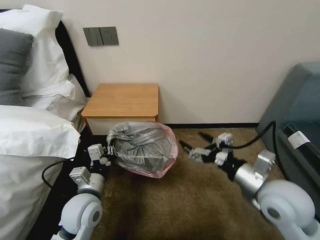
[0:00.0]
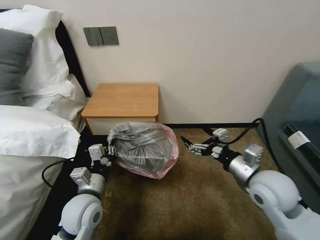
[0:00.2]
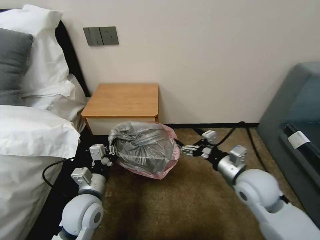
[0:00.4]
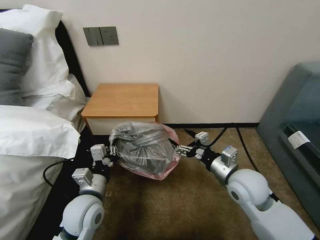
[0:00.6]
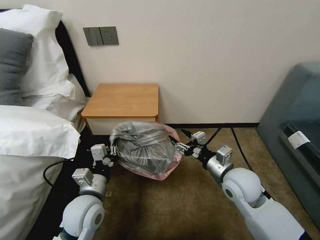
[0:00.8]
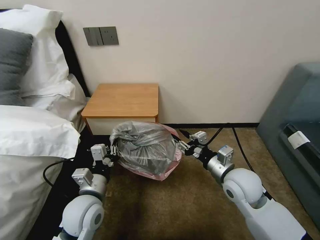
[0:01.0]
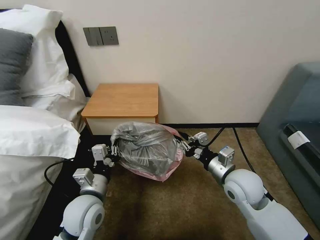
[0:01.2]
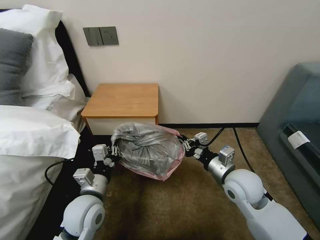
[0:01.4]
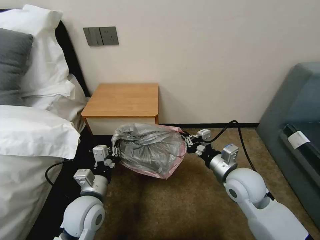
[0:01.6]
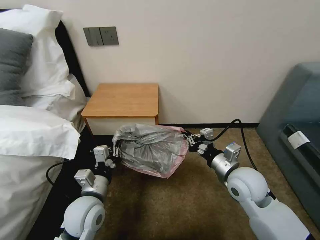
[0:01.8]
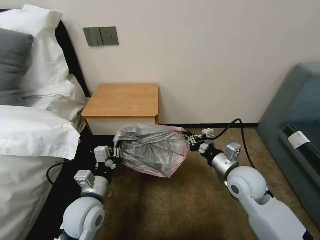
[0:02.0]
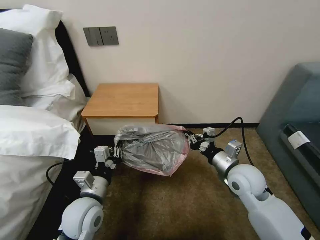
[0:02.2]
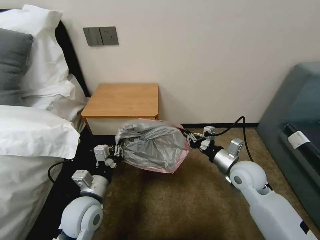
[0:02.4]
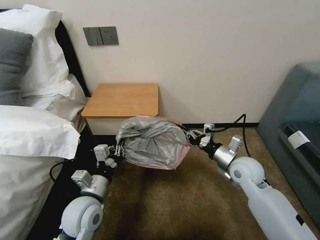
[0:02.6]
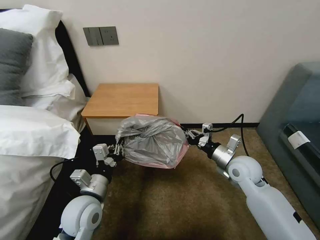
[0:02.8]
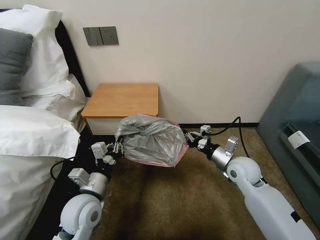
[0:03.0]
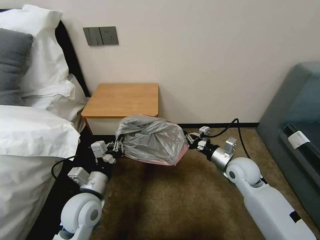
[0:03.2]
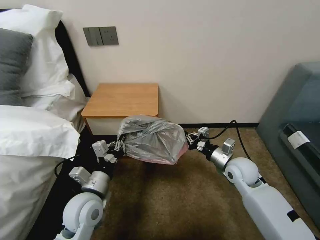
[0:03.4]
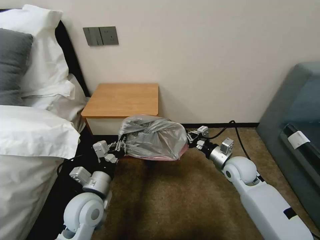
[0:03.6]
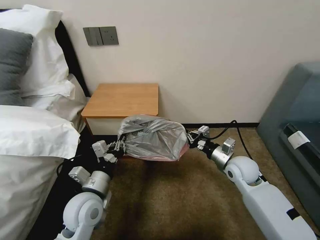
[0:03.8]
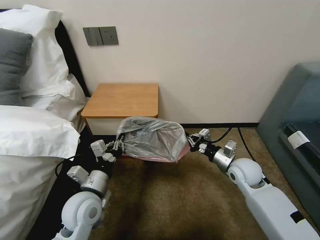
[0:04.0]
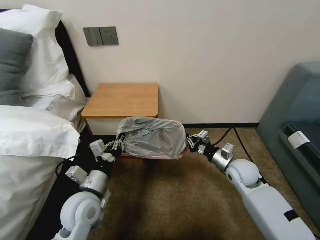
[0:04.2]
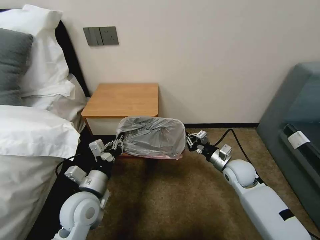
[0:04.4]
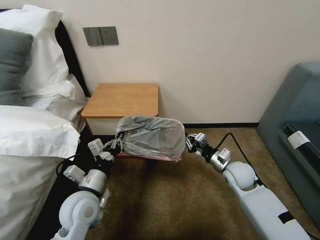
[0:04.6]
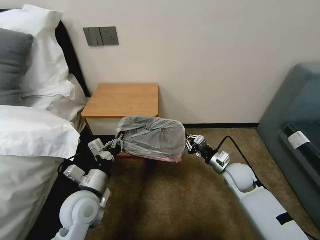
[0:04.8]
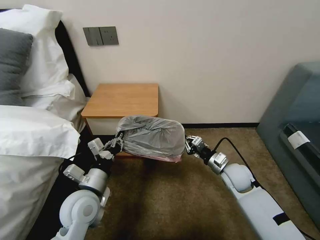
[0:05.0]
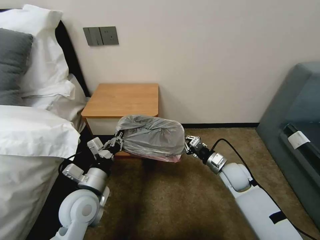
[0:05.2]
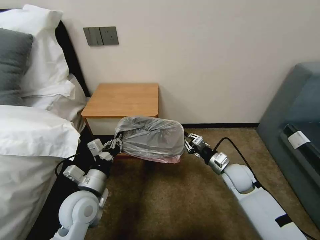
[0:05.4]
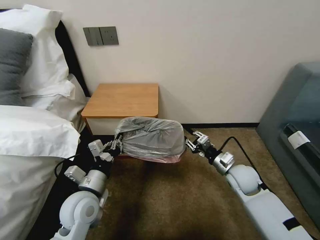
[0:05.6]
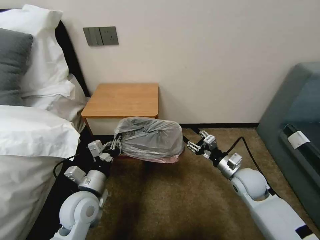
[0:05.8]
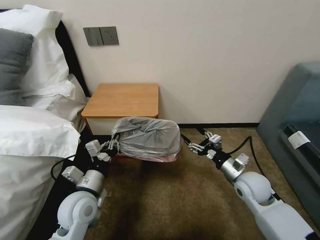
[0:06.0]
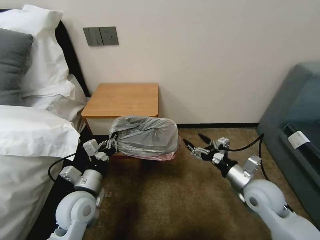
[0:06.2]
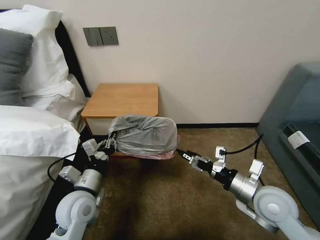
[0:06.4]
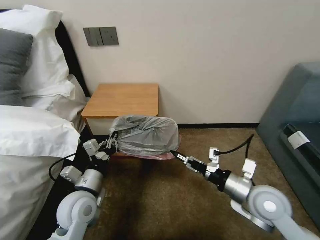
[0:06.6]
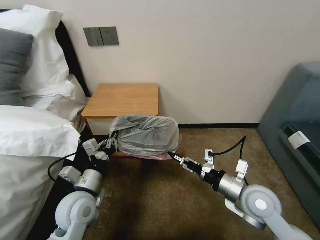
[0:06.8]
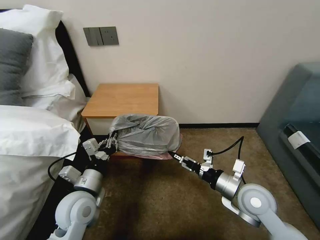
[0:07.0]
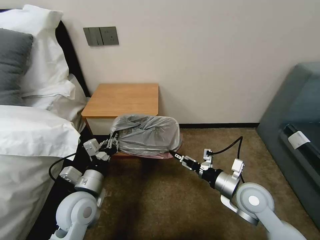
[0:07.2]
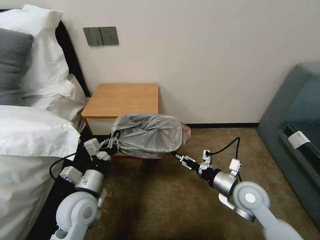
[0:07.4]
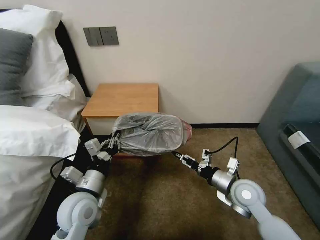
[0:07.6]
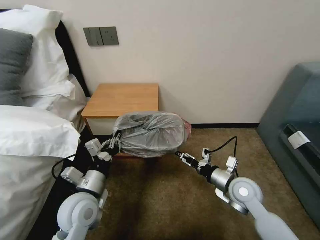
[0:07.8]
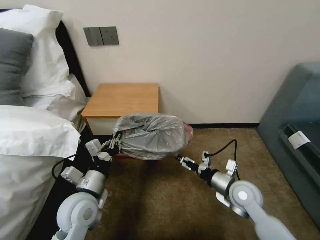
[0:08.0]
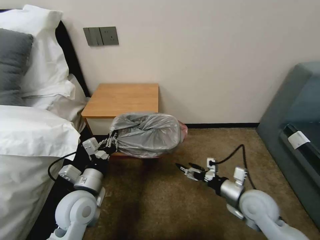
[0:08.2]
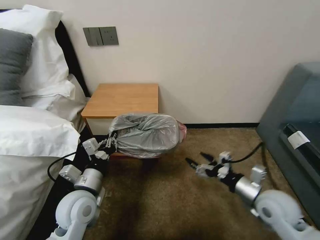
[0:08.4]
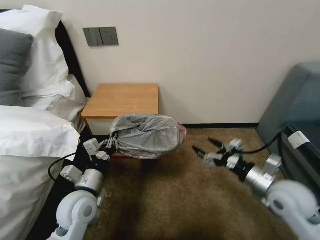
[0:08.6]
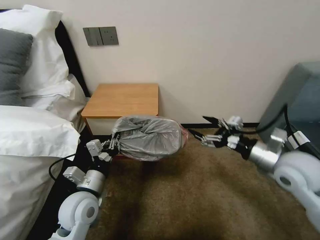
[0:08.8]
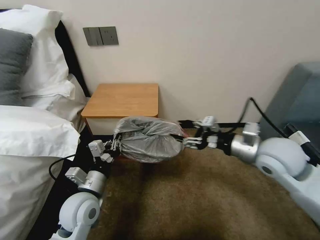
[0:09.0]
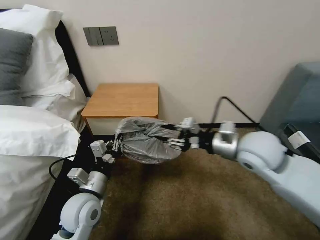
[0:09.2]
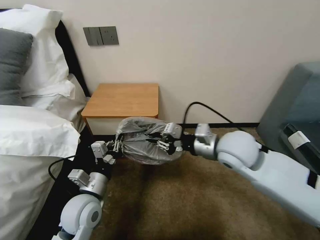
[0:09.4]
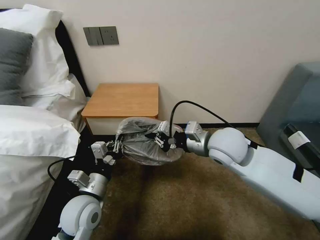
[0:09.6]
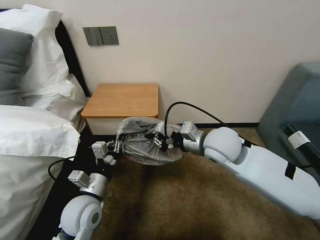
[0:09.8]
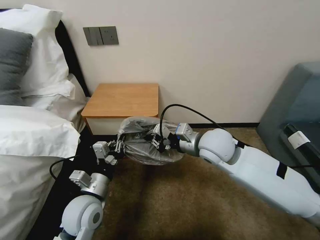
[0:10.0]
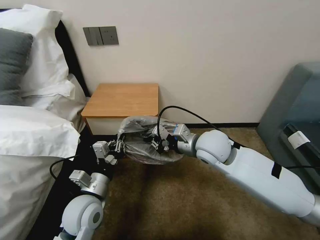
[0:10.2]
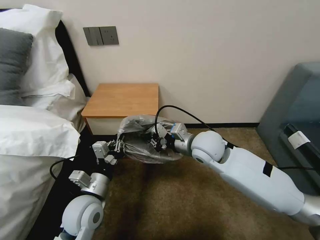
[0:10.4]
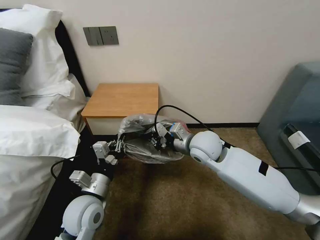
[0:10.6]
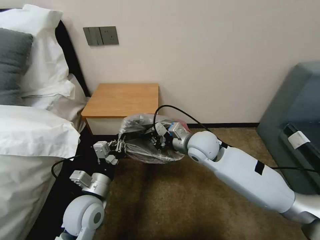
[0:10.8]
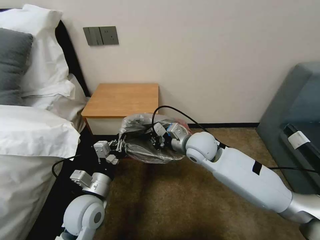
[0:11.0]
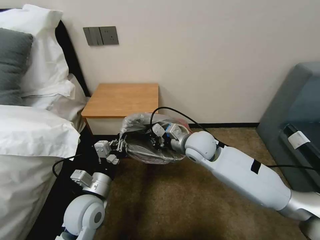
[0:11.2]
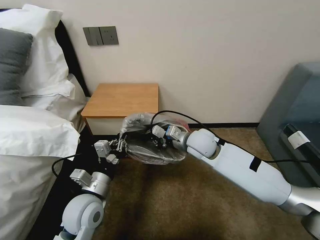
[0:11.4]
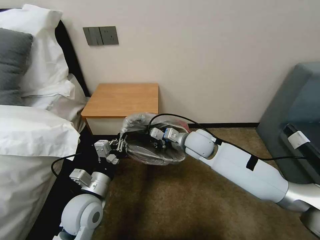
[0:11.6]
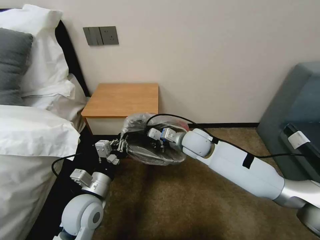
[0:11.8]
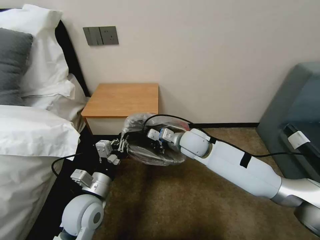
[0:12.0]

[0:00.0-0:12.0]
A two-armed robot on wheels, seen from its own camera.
Task of the whole recording: Pick up the garbage bag from the table and place it over the trash can.
0.0 to 1.6 s: The right gripper travels forward and downward by roughly 10 cm, and closes.
1.6 to 3.0 s: The right gripper heads forward, covering approximately 5 cm.
4.4 to 6.0 s: The right gripper heads backward, covering about 5 cm, and opens its fingers.
7.6 to 9.0 s: The right gripper travels upward by about 15 cm, and closes its fingers.
9.0 to 10.4 s: The right gripper is displaced to the left and forward by some 15 cm, and closes.
10.4 to 12.0 s: The right gripper moves approximately 5 cm.

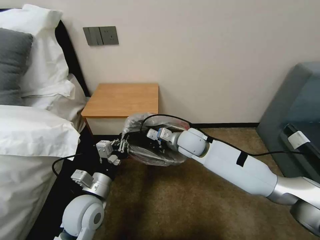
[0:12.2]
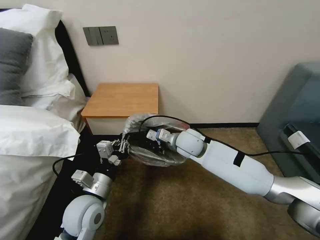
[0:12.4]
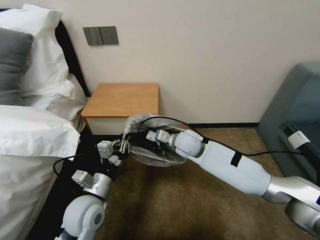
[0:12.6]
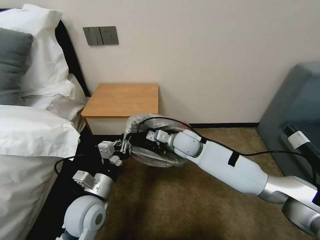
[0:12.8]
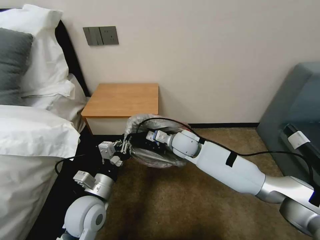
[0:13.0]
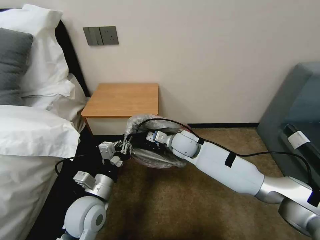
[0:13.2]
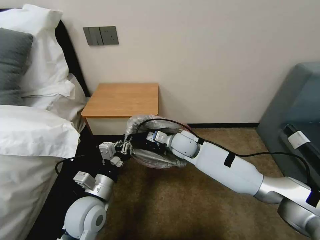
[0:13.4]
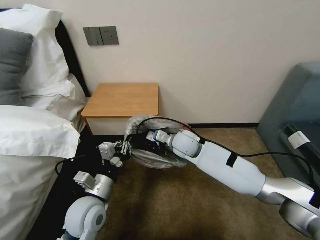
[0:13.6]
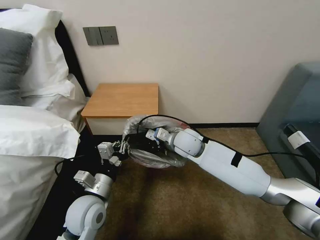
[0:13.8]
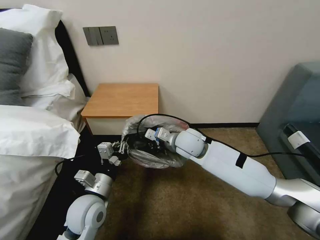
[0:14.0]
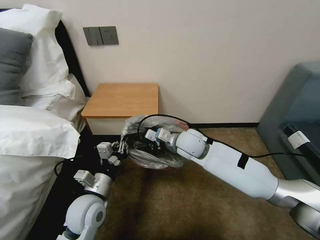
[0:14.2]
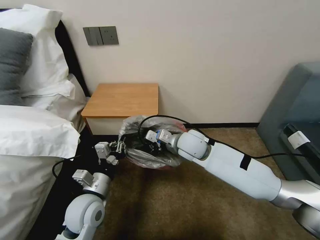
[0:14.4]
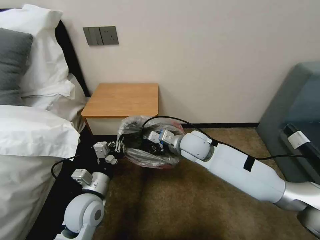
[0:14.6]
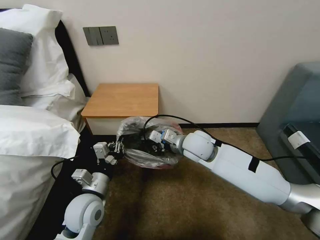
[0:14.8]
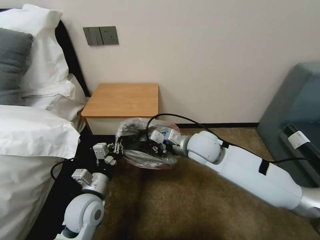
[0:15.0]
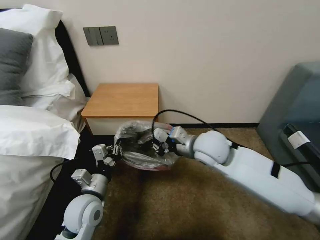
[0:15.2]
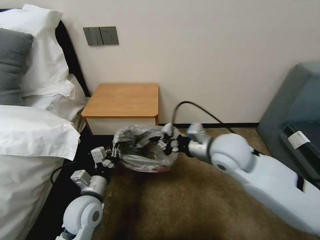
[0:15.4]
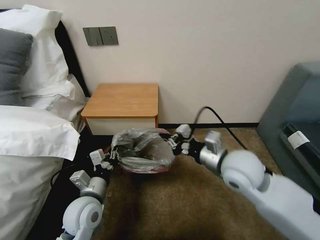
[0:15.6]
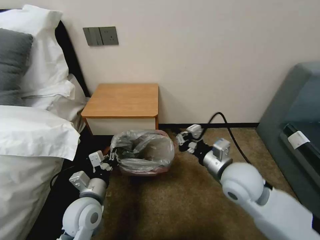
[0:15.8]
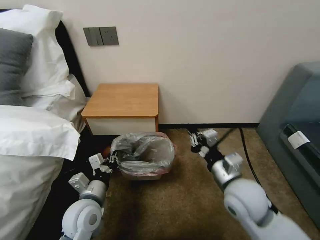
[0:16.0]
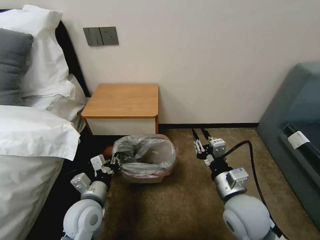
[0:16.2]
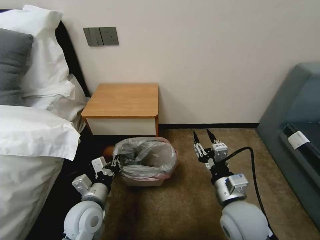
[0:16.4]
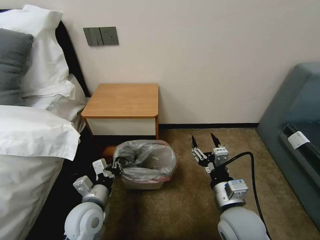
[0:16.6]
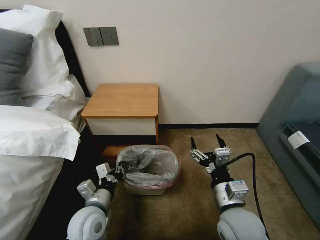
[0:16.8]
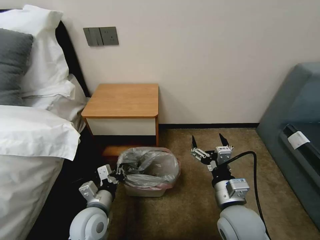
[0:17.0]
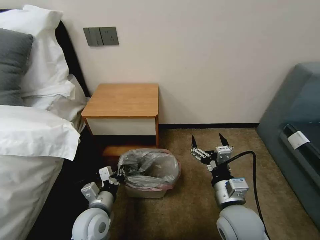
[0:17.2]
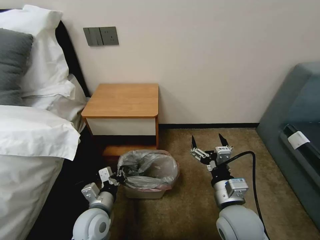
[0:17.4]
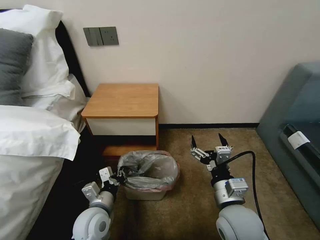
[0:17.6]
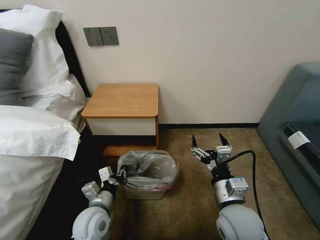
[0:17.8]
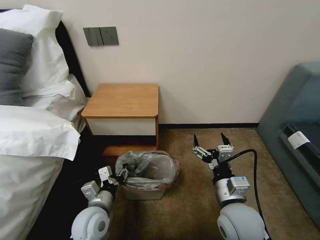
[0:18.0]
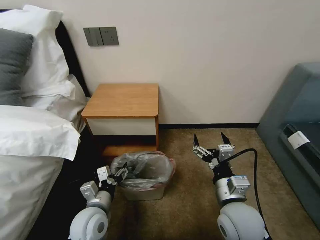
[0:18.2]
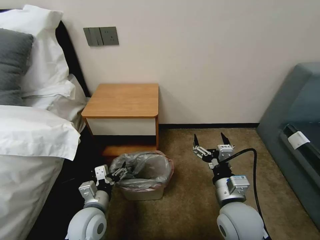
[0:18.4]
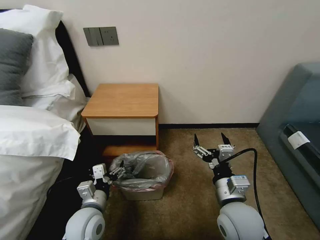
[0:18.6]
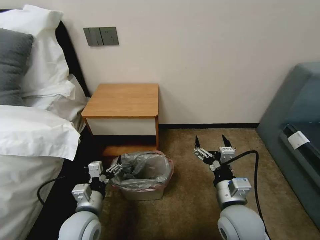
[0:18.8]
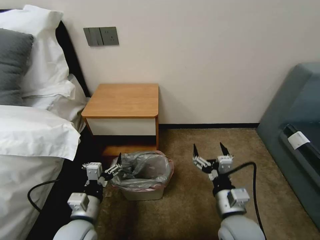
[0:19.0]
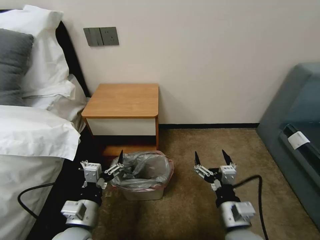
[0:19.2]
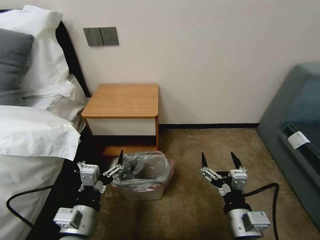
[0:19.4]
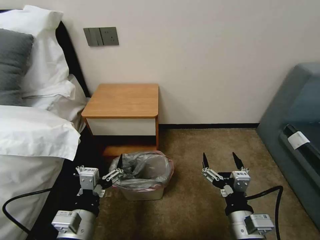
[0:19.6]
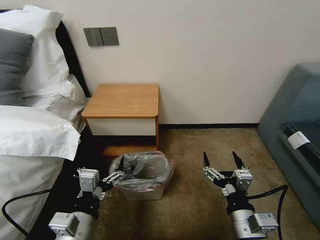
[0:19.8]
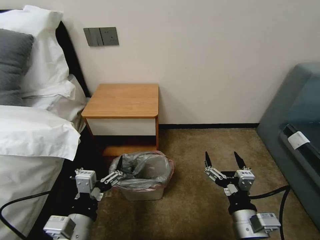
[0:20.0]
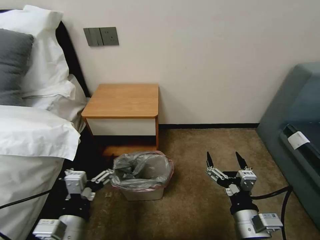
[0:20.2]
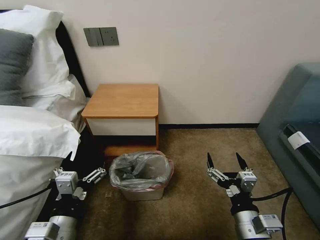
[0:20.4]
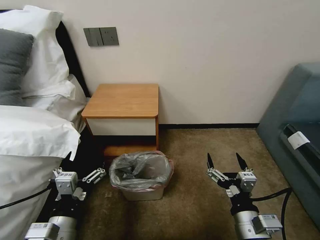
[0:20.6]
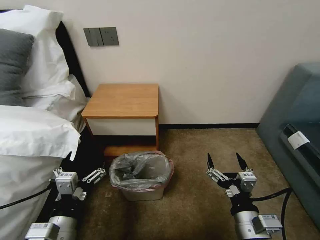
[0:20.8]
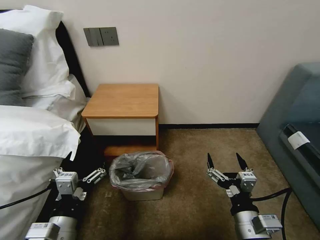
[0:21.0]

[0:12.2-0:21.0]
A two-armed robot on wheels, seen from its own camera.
Task of the whole recording: Pick up the garbage bag from the table and place it over the trash can.
12.2 to 13.6 s: The grippers stay close to where they were, moving slightly.
13.6 to 15.2 s: The right gripper is displaced upward, backward and to the right by some 10 cm.
15.2 to 16.6 s: The right gripper is displaced backward and downward by some 20 cm, and opens.
16.6 to 18.0 s: The left gripper opens its fingers.
18.0 to 19.6 s: The left gripper heads backward and upward, covering roughly 15 cm, and opens. Meanwhile the right gripper goes approximately 10 cm backward.
19.6 to 21.0 s: There are only small adjustments of the grippers.

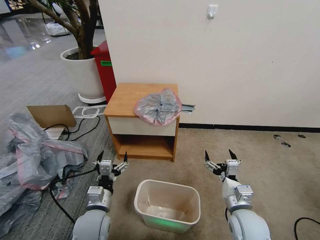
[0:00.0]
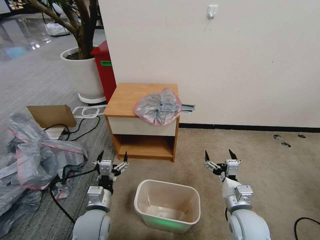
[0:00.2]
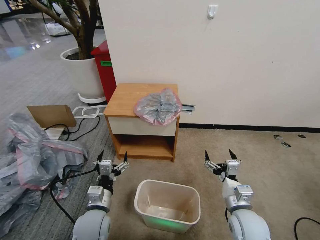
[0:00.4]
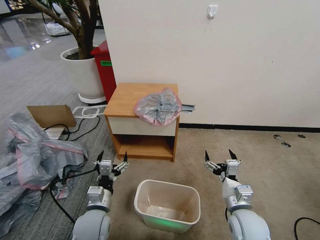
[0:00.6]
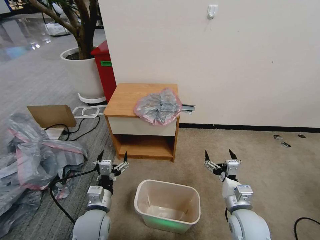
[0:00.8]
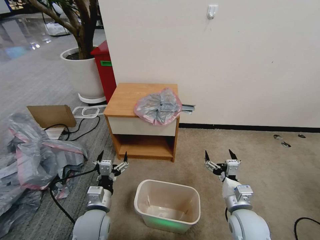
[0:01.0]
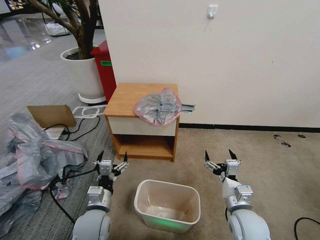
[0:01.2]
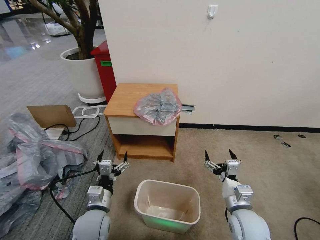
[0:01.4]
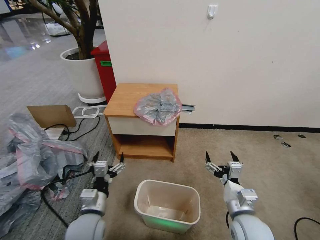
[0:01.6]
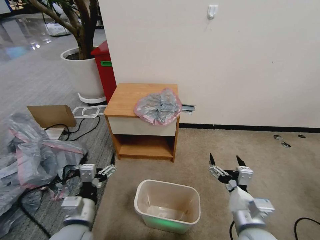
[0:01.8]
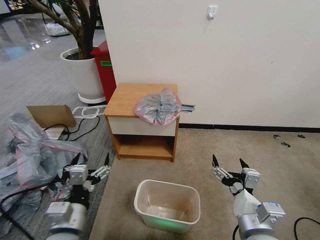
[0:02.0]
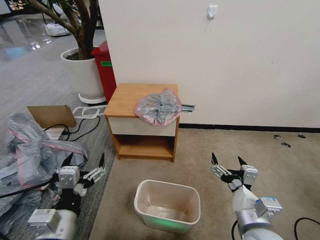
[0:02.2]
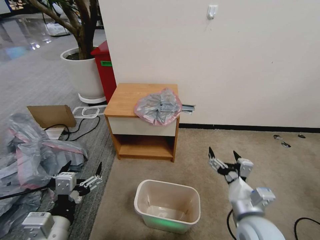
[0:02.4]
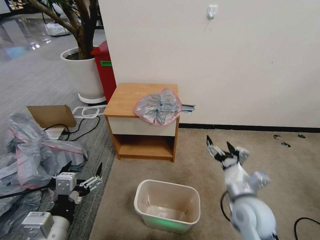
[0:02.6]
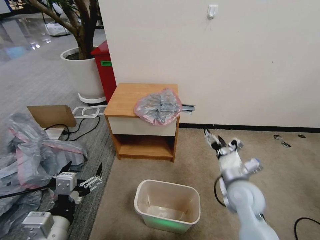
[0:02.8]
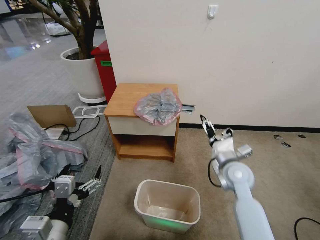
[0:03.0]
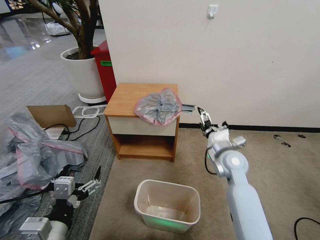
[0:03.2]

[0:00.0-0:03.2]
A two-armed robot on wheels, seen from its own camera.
Task of the whole recording: Pick up the garbage bag from the table and place it over the trash can.
1.6 to 3.2 s: The left gripper moves upward and backward, roughly 15 cm; the right gripper is displaced forward by roughly 20 cm.
